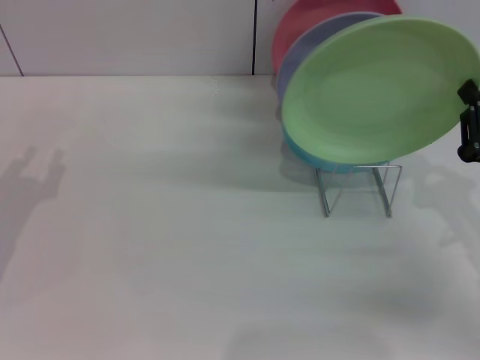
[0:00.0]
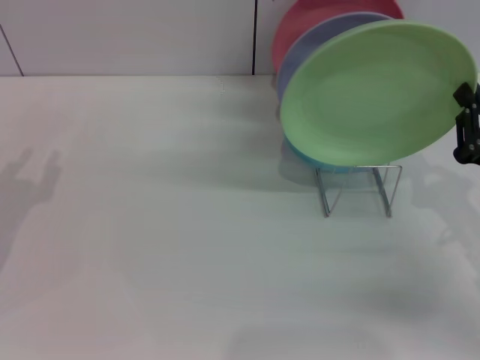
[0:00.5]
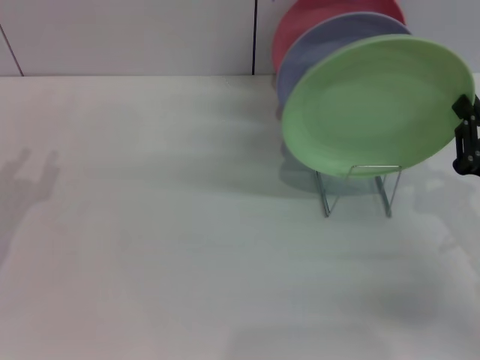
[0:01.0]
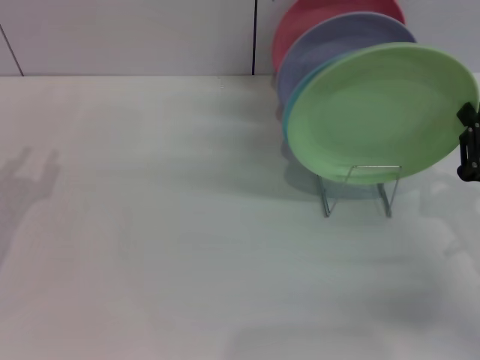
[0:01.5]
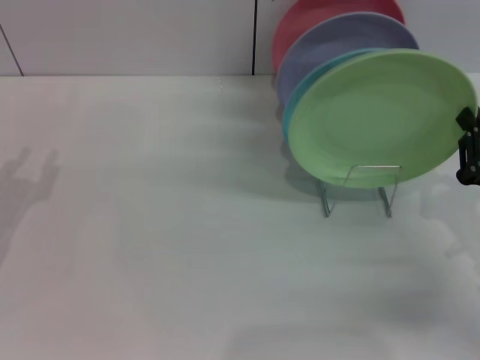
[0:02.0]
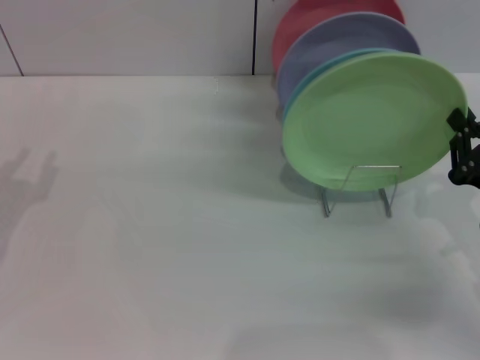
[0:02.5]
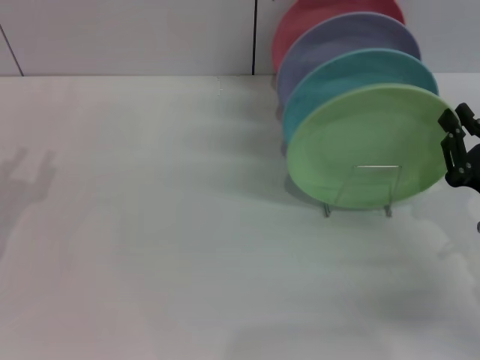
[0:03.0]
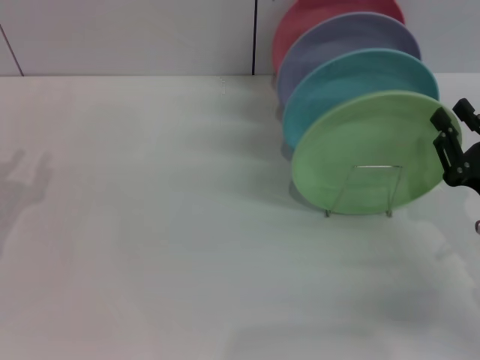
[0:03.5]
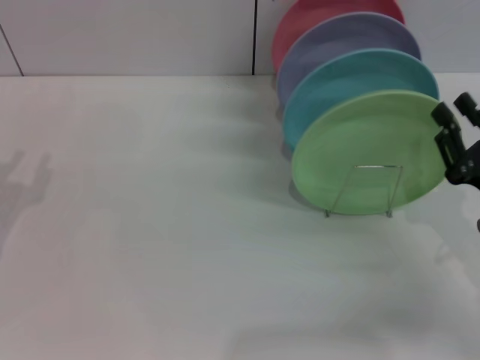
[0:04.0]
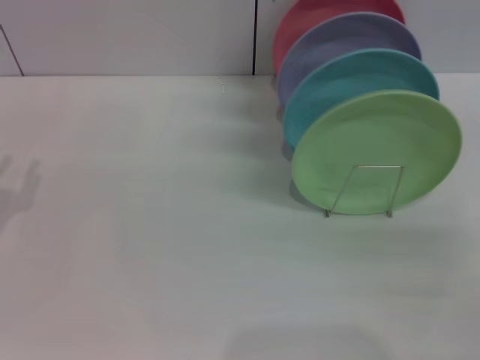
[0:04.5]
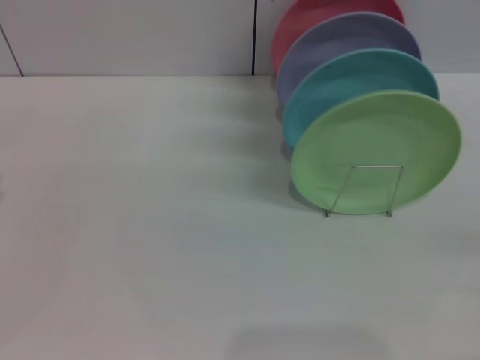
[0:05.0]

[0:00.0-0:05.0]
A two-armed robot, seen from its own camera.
Task of the whole recording: Grip the plate with one hand, pass it to the other, then set it on the shelf.
Step, 0:00.0 to 0:03.0: Place the plate on the shelf with the right gripper.
0:00.0 to 0:02.5: The grippers make only small movements.
0:02.5 to 0:05.0: The right gripper travels to the right and backward by some 15 cm, and opens, while the left gripper ends up roughly 5 cm from where it was.
